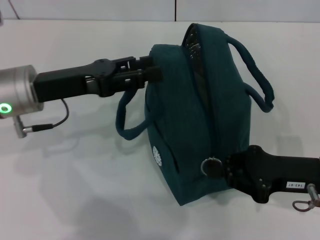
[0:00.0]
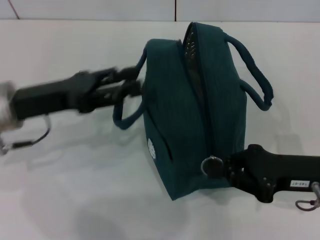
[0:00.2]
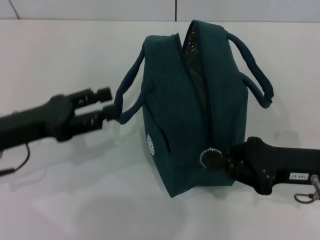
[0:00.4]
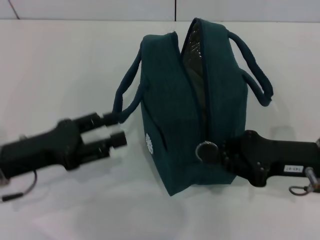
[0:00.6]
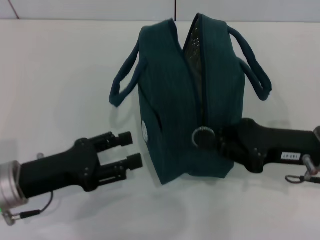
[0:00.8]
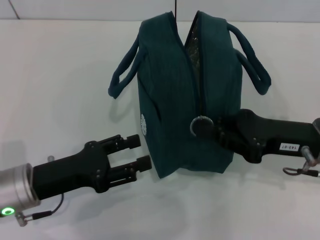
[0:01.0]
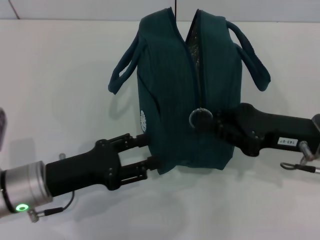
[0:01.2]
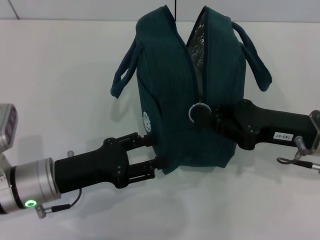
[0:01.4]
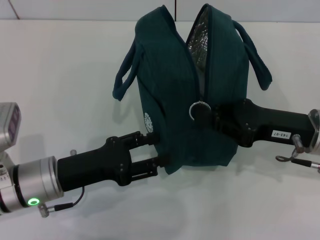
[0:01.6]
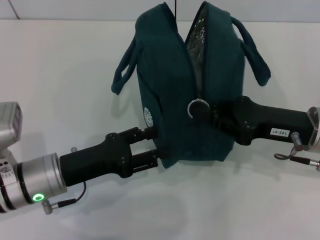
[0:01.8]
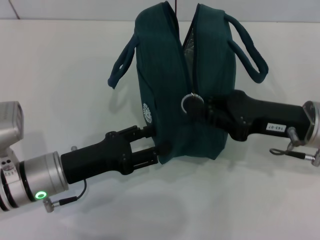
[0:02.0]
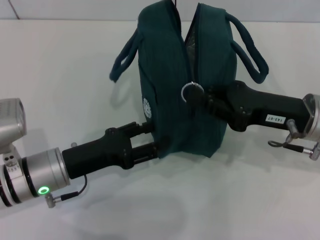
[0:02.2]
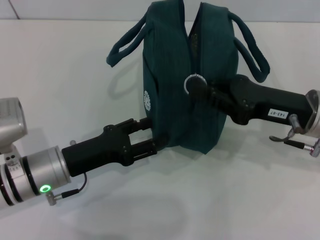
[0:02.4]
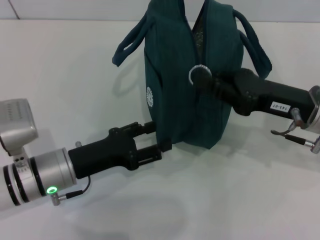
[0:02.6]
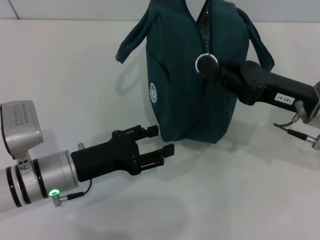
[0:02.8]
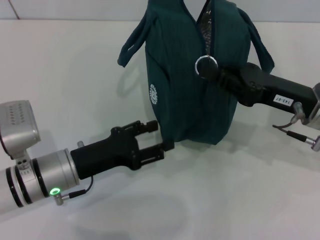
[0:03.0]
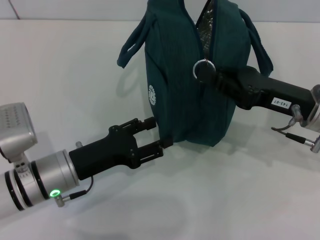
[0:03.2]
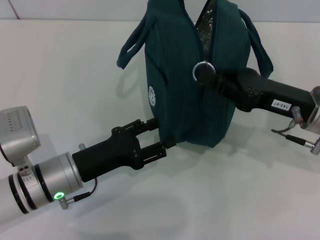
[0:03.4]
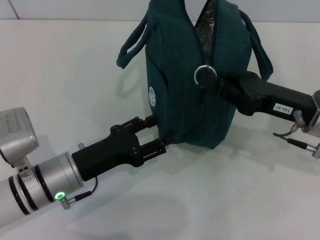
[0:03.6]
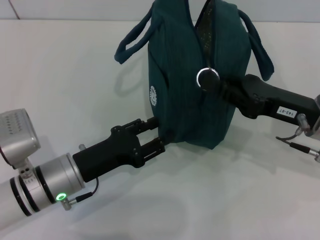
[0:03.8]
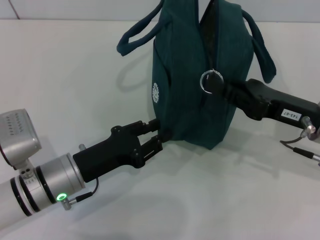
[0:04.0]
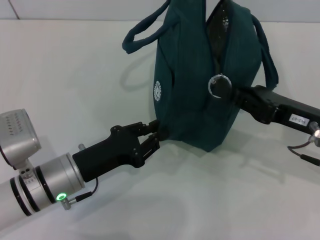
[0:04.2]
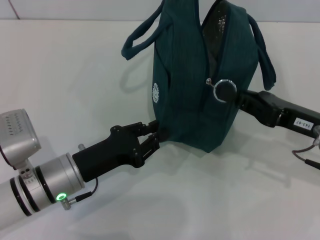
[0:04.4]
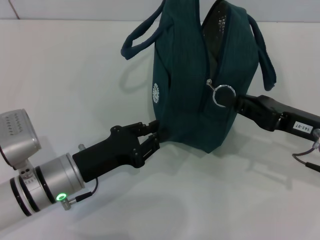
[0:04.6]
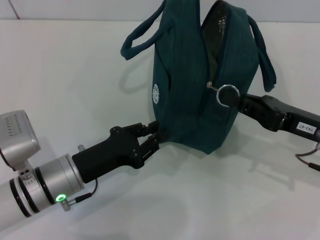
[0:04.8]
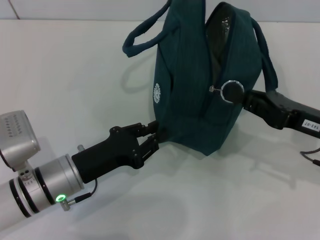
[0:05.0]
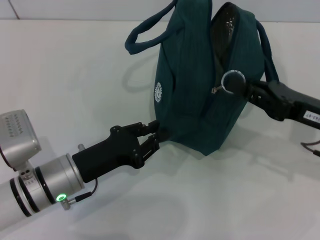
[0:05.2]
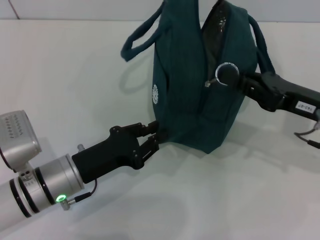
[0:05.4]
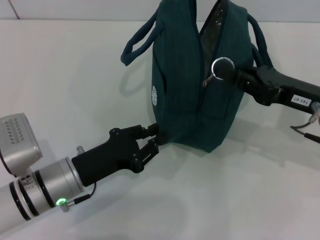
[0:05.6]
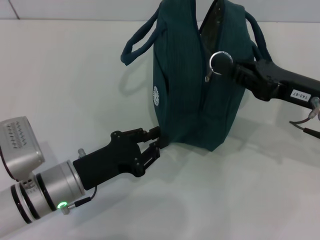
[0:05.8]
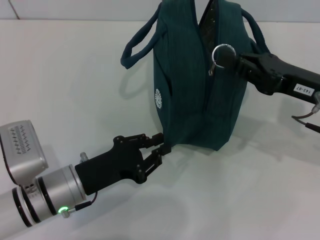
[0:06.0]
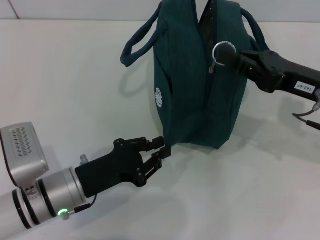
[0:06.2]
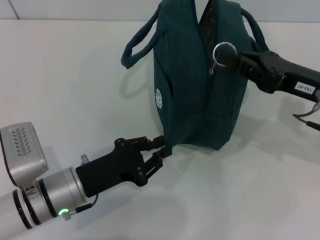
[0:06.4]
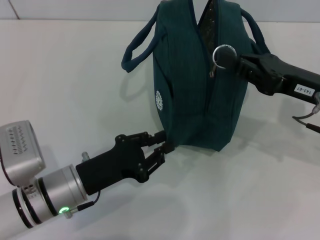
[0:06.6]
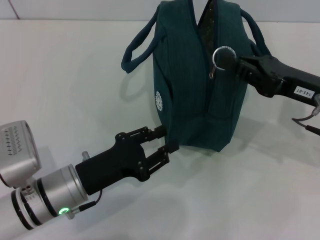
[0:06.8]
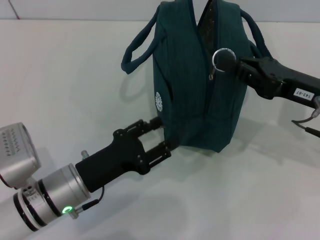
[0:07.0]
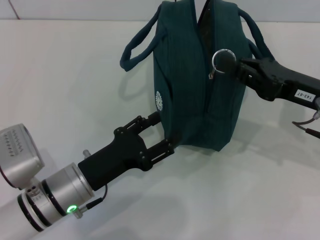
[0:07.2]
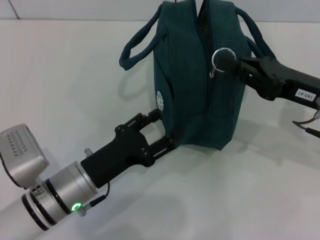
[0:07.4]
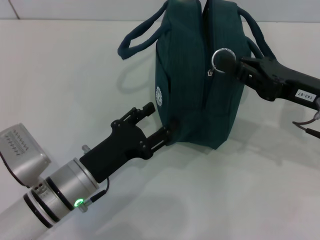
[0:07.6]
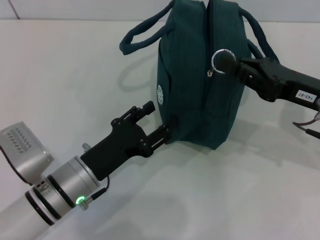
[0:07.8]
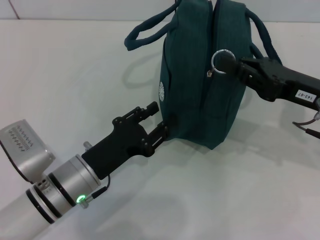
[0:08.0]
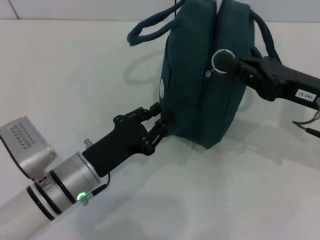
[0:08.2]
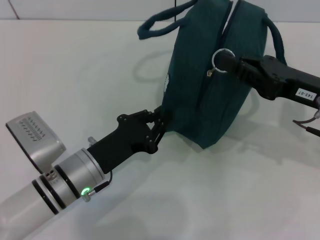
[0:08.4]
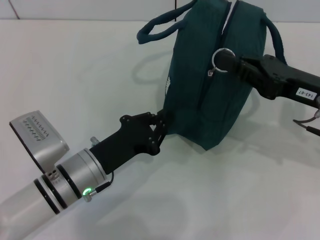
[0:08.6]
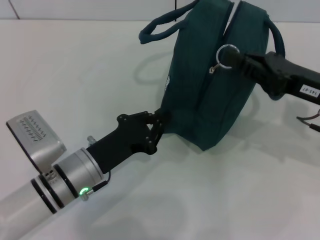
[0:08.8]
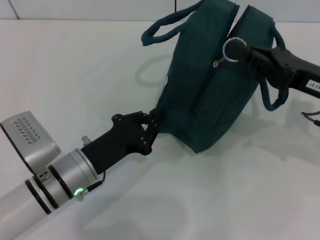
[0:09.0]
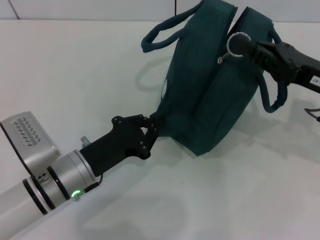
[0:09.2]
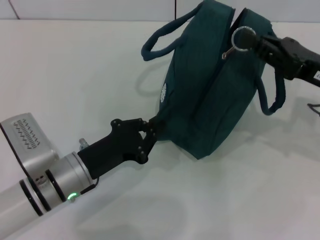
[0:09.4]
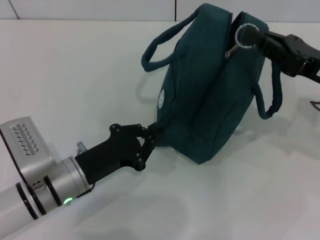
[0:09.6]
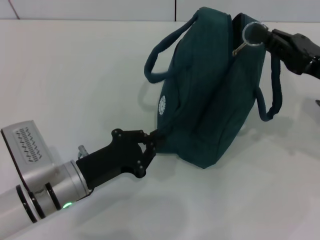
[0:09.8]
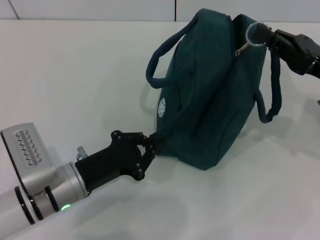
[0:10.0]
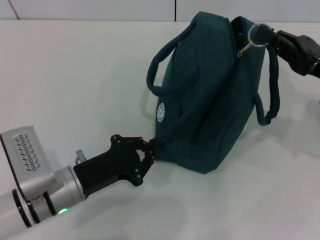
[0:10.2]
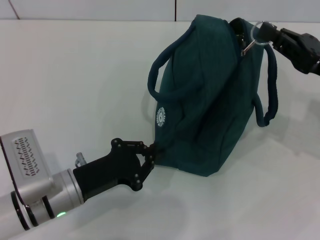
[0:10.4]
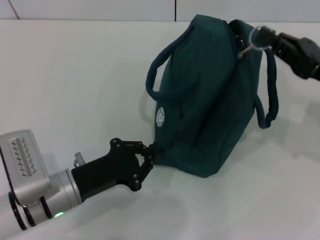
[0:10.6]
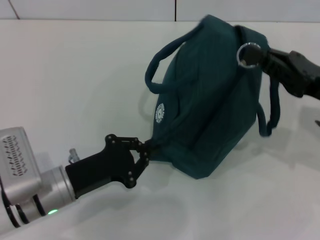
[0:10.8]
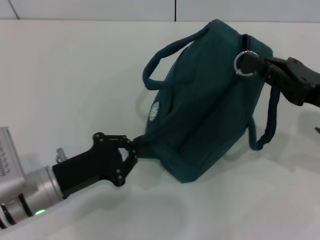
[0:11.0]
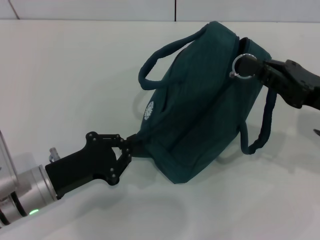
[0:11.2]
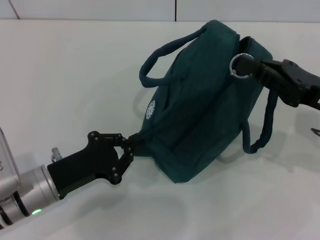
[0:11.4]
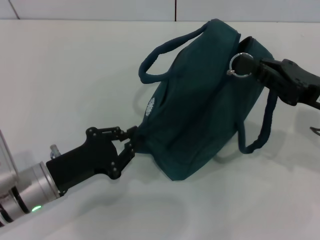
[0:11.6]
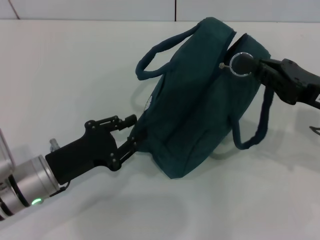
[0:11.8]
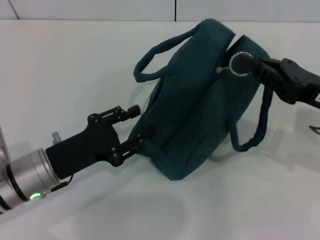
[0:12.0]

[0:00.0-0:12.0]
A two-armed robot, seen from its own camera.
0:00.0 to 0:01.6: The left gripper goes about 10 cm downward and backward, while the right gripper shifts by about 5 cm.
0:03.0 to 0:04.4: The left gripper closes.
0:04.4 to 0:06.0: There are only small adjustments of the grippers.
0:06.0 to 0:07.6: The left gripper opens.
0:07.6 to 0:09.0: The left gripper closes.

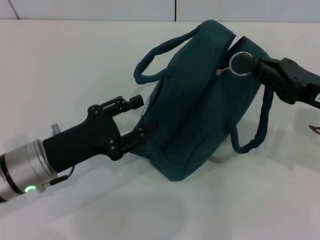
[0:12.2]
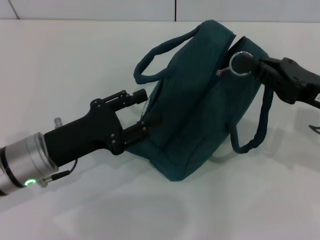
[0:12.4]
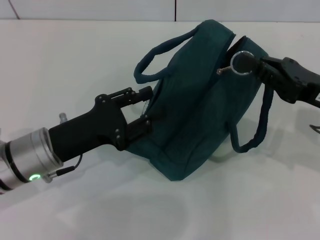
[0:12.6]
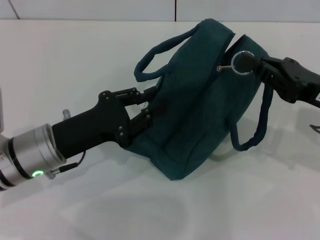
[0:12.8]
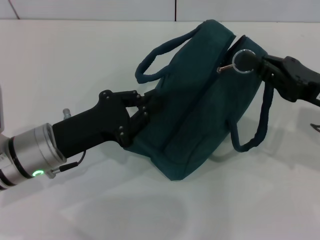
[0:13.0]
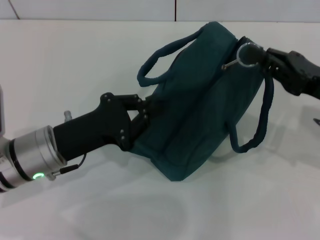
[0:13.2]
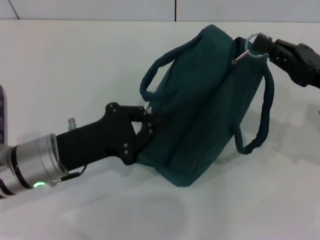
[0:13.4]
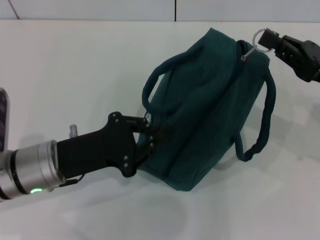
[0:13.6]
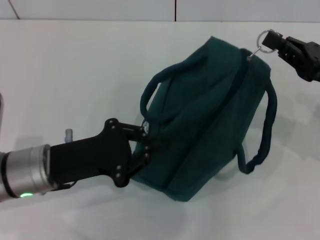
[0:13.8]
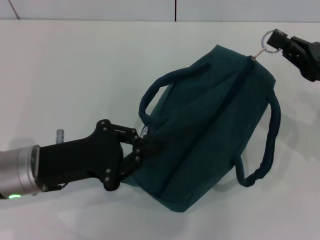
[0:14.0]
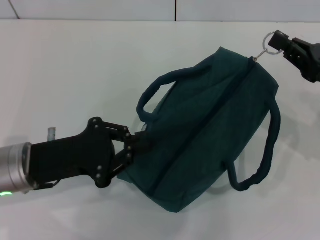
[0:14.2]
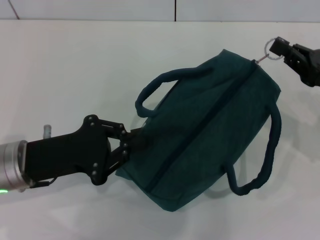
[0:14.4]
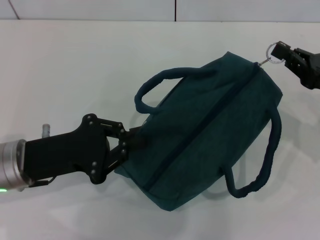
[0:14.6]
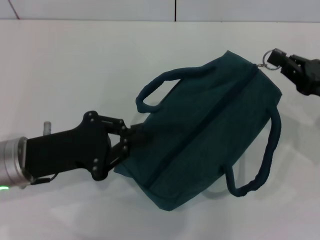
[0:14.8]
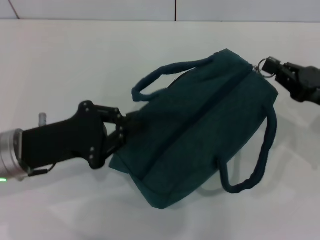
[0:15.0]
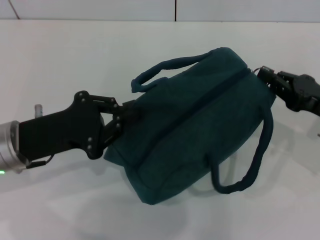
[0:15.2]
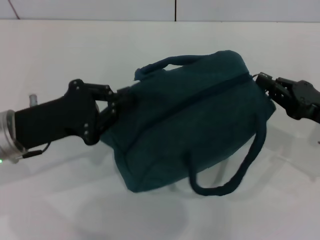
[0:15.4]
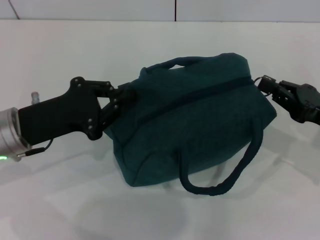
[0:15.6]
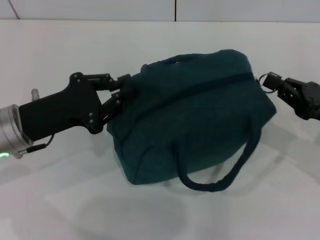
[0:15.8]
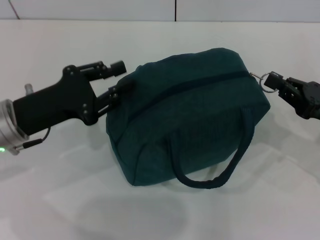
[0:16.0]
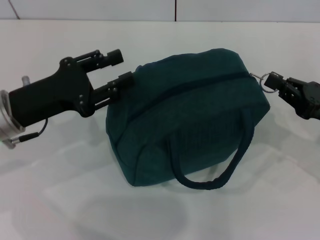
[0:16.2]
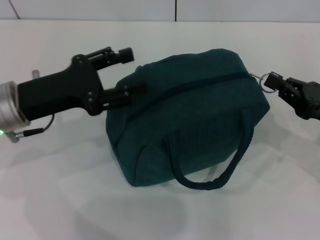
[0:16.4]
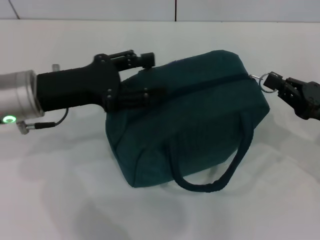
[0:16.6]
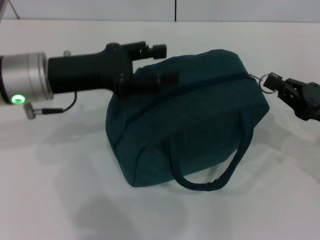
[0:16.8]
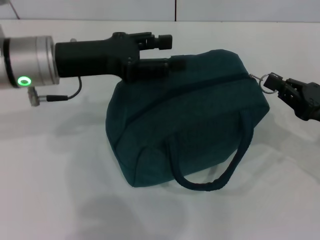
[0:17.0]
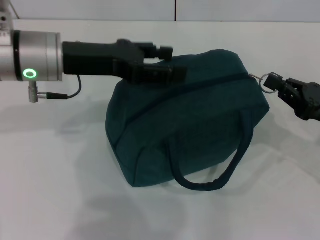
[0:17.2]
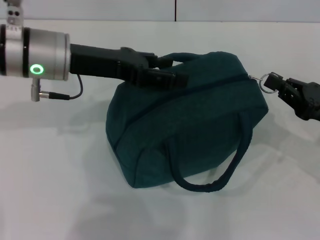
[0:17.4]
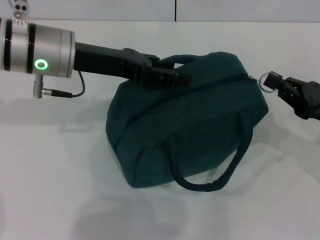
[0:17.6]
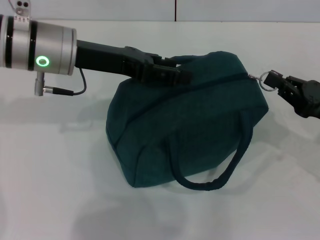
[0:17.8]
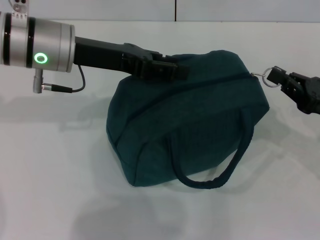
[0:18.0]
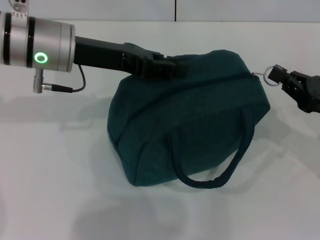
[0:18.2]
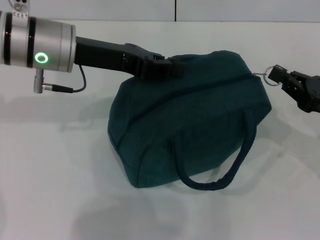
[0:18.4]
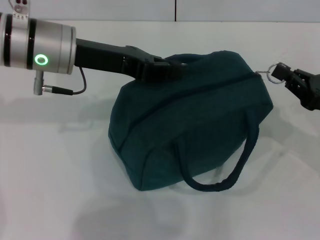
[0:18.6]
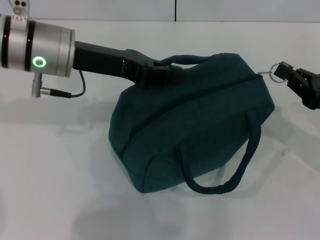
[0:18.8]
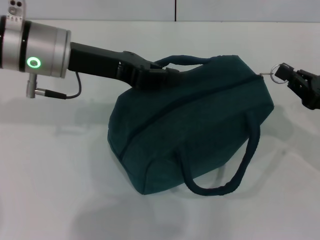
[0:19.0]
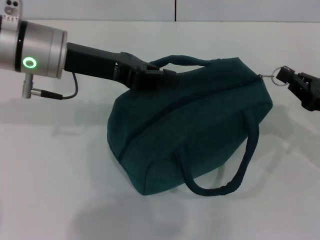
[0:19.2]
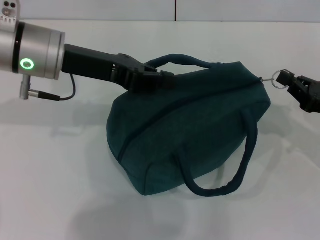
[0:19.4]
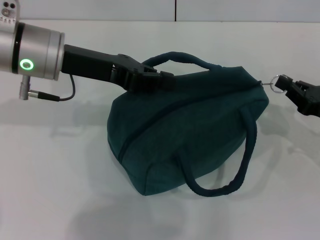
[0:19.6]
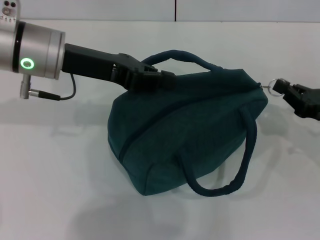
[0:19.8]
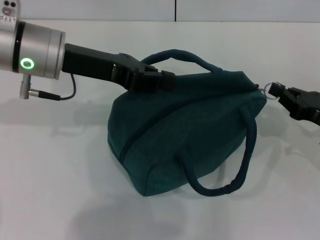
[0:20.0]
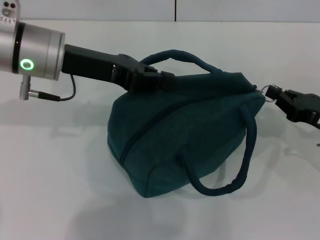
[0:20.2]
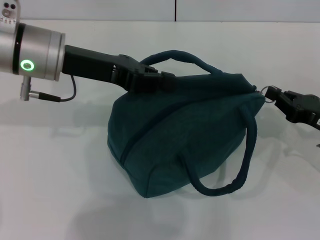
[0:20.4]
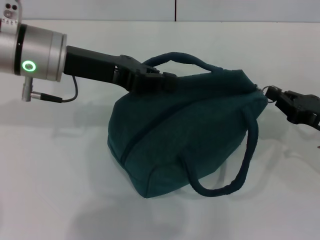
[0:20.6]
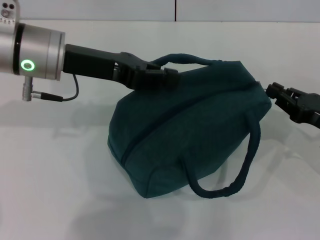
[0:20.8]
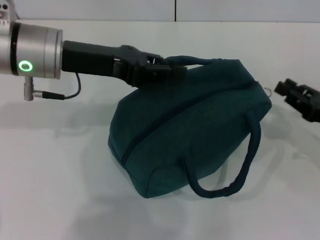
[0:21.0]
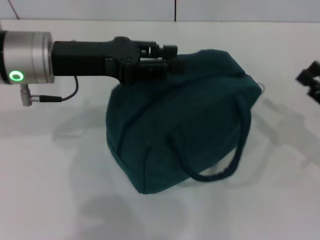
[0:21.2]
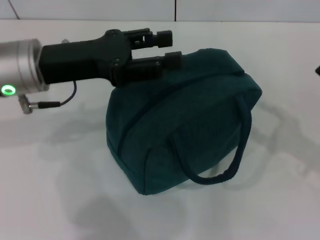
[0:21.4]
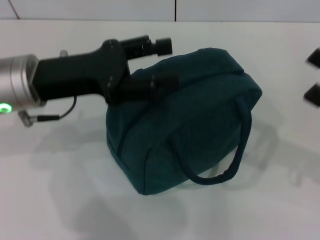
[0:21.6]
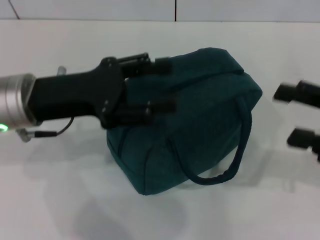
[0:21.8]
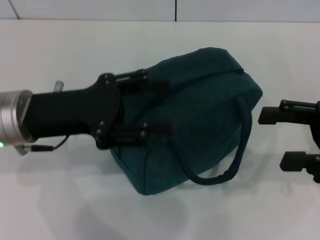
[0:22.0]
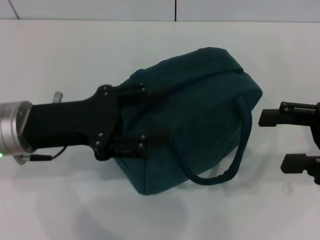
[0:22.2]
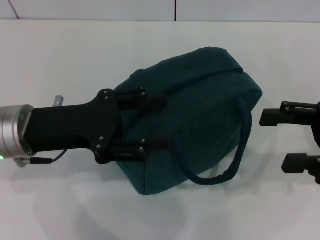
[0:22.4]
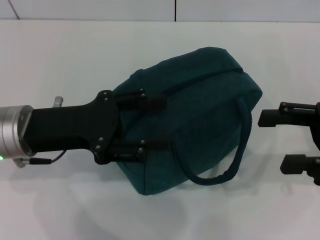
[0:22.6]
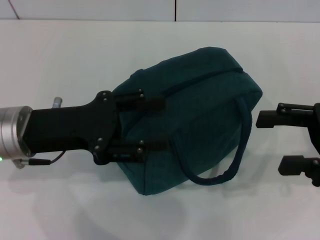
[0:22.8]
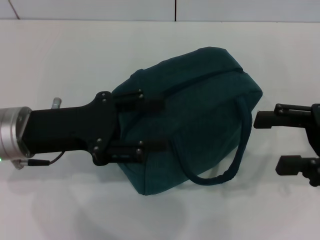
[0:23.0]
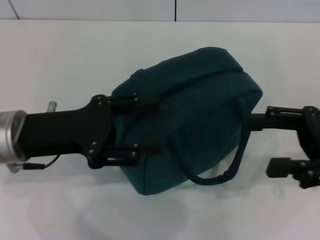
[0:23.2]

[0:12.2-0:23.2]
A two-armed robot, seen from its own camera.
Step, 0:12.2 to 0:20.8: Zip up the lunch bag with your right hand.
0:12.2 to 0:13.8: The left gripper closes its fingers.
0:13.8 to 0:15.4: The left gripper changes place by roughly 5 cm.
0:15.4 to 0:17.0: The left gripper shifts approximately 10 cm upward and forward, and opens up.
0:17.0 to 0:18.4: The left gripper closes.
0:18.4 to 0:20.0: The left gripper closes its fingers.
0:20.0 to 0:21.6: The left gripper changes place by roughly 5 cm, and opens its fingers, while the right gripper travels upward by about 5 cm, and opens up.
0:21.6 to 0:23.2: The left gripper ends up some 5 cm from where it was. The right gripper shifts by roughly 5 cm.
